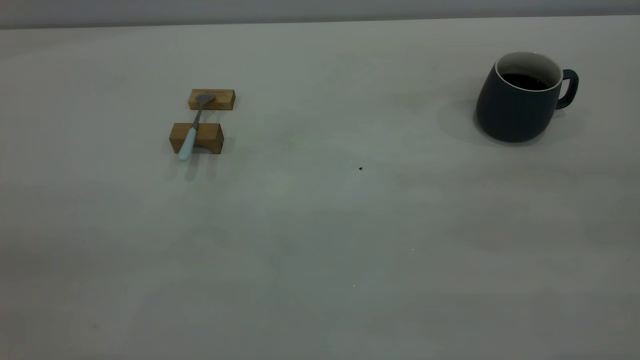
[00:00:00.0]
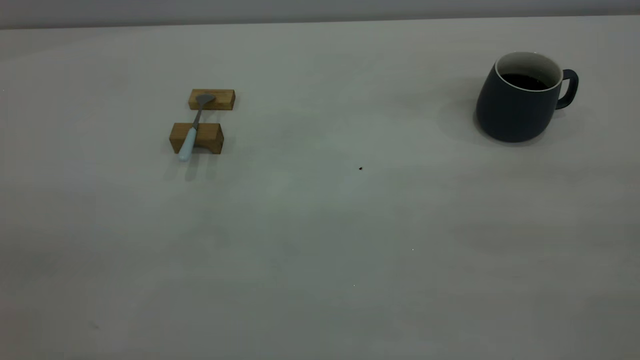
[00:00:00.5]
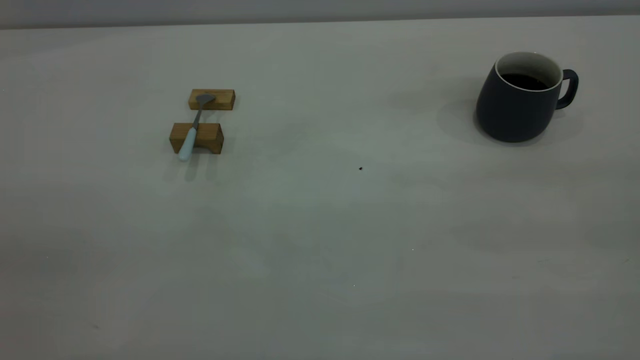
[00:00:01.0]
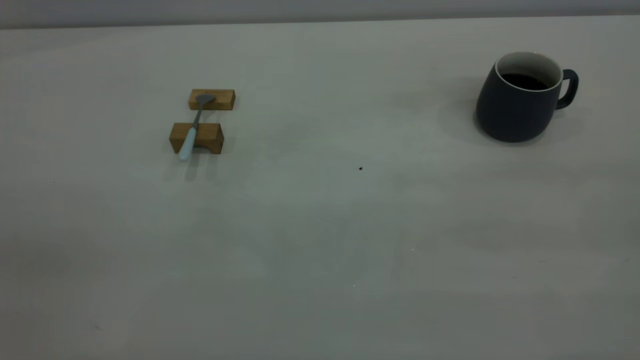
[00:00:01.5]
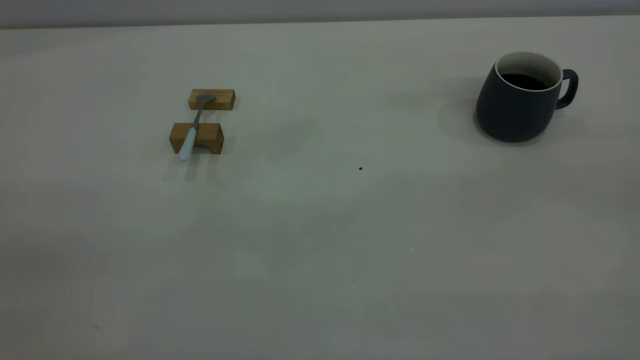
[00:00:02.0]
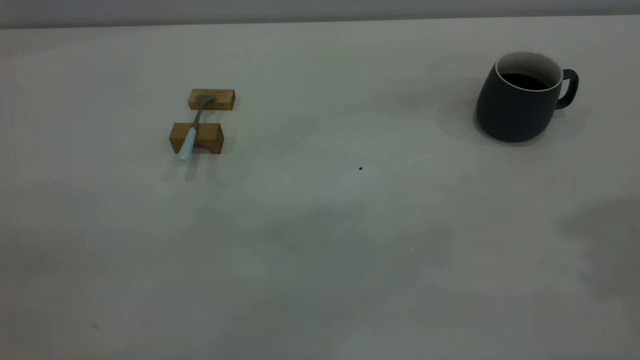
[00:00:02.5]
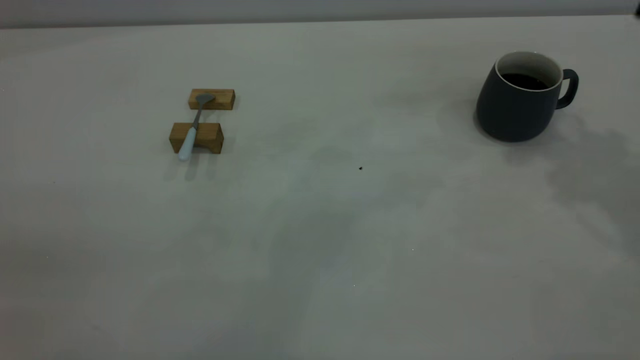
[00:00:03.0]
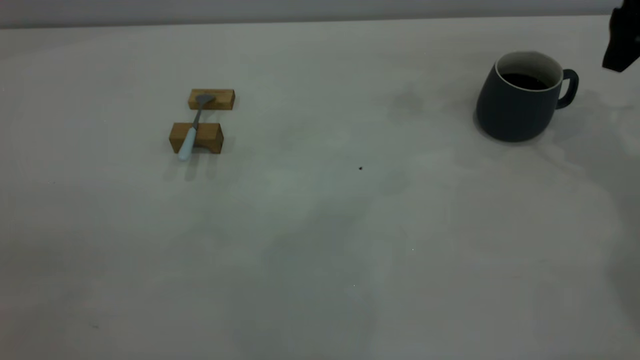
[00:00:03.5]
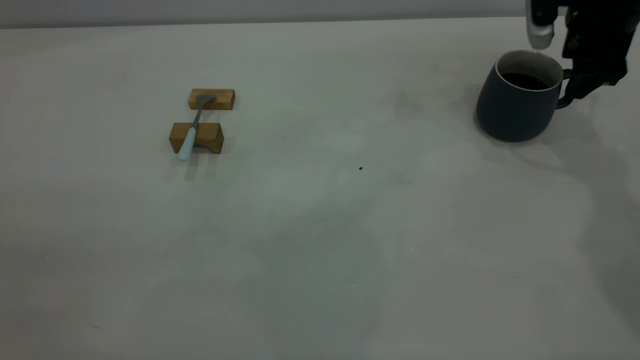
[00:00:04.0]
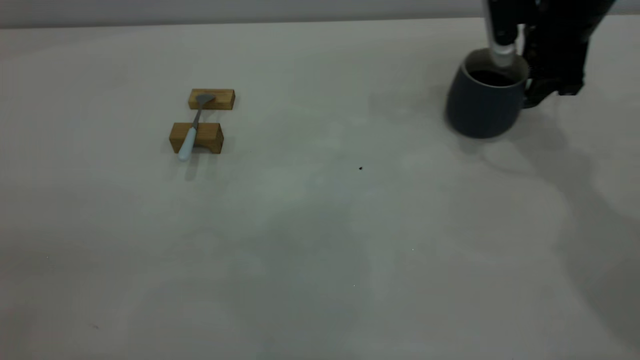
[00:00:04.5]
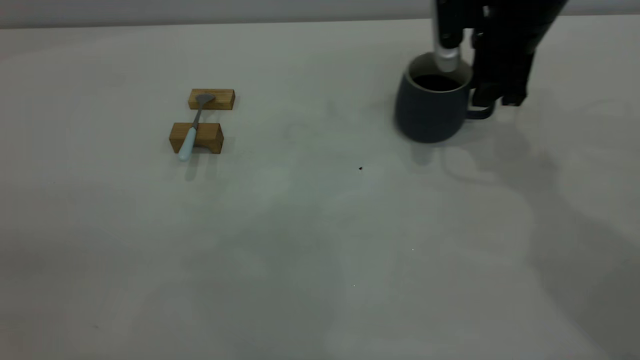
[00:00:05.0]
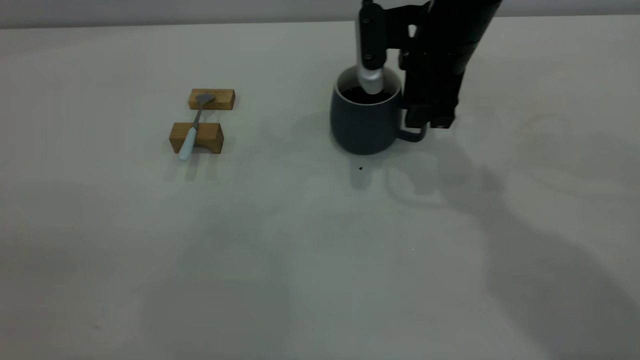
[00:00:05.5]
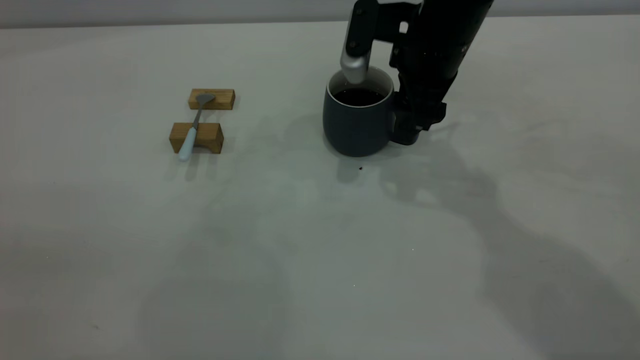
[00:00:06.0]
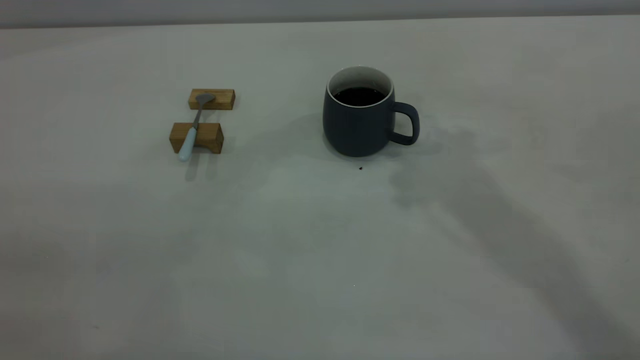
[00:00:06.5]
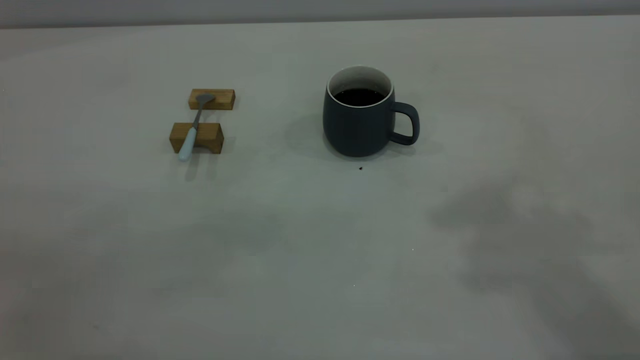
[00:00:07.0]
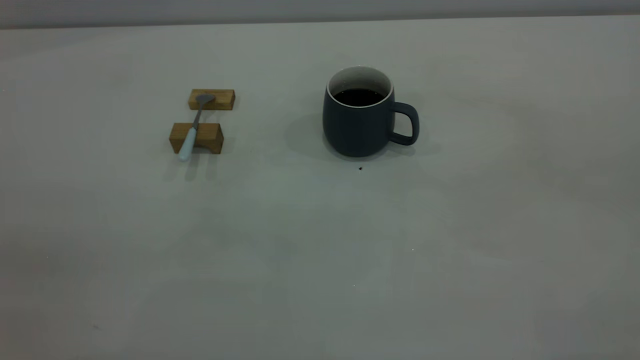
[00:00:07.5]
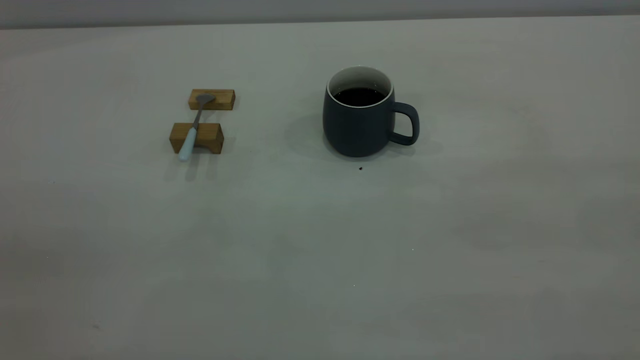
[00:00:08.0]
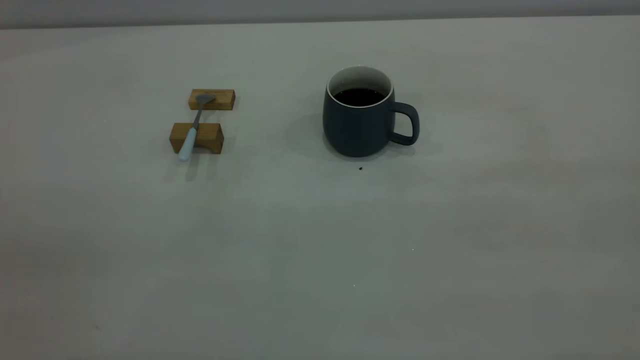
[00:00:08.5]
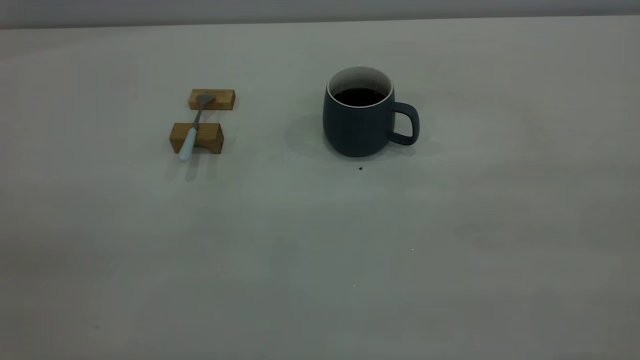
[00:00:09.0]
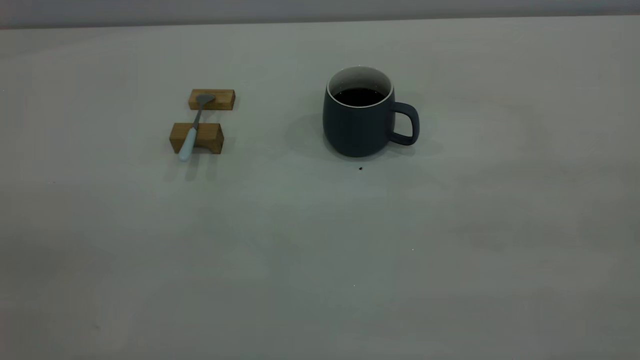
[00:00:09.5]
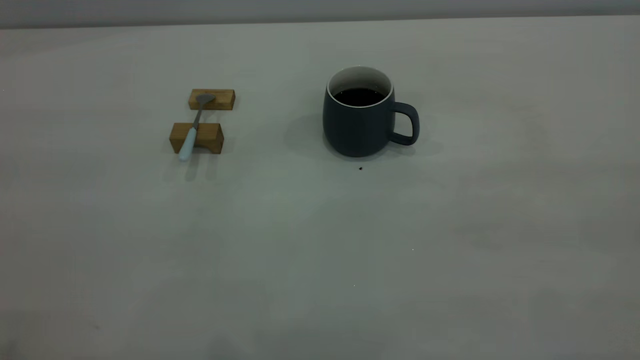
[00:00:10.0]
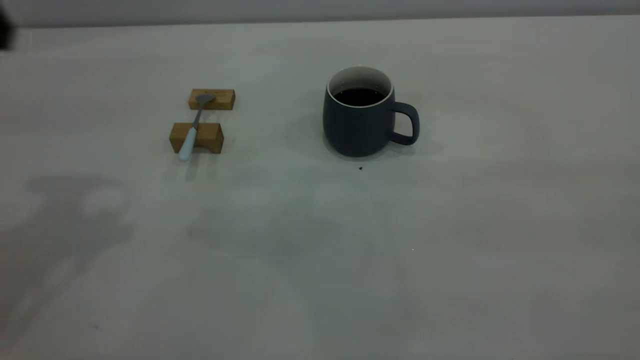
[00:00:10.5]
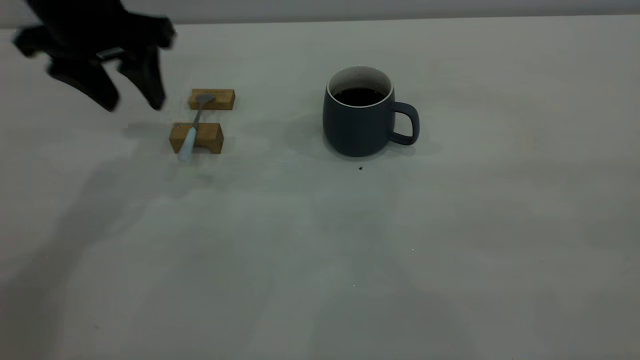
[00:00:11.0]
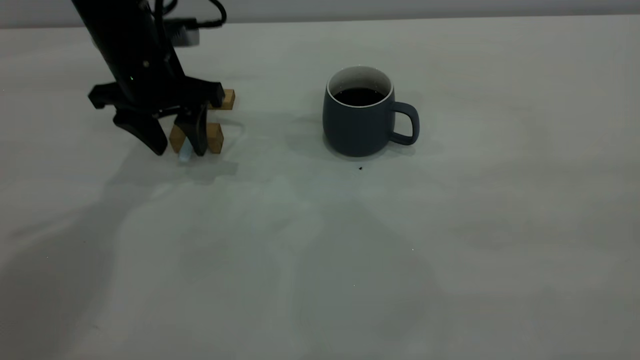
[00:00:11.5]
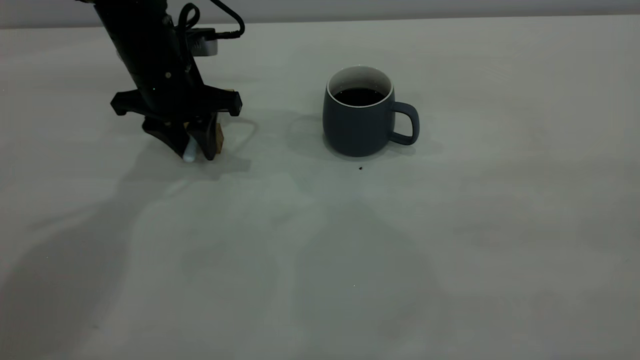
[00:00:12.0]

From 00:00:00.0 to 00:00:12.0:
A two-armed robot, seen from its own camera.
Step, from 00:00:00.0 to 00:00:06.0: Move the cup with coffee to the center of view.
From 00:00:02.0 to 00:00:04.0: The right gripper travels forward and downward by approximately 50 cm.
From 00:00:04.0 to 00:00:06.0: The right gripper goes about 20 cm to the left, and closes and opens again.
From 00:00:06.0 to 00:00:08.0: The right gripper shifts some 50 cm backward, upward and to the right.
From 00:00:10.0 to 00:00:12.0: The left gripper goes approximately 40 cm forward and downward, and closes up.

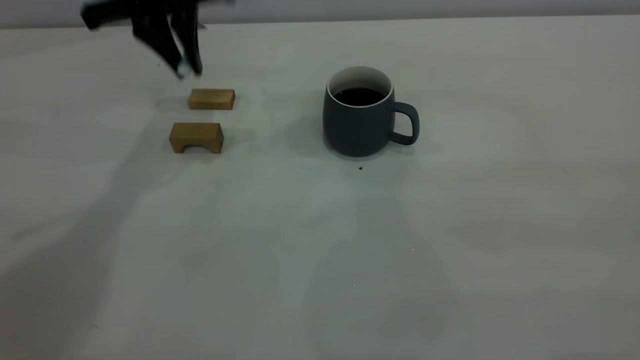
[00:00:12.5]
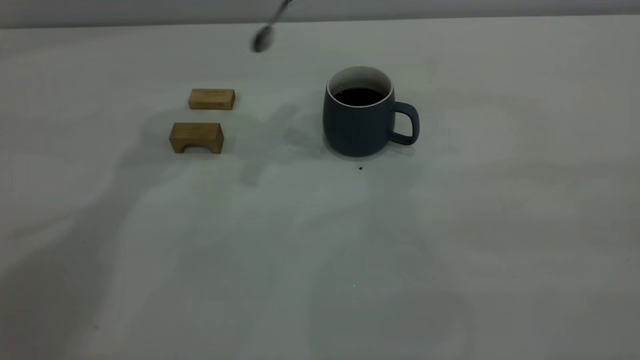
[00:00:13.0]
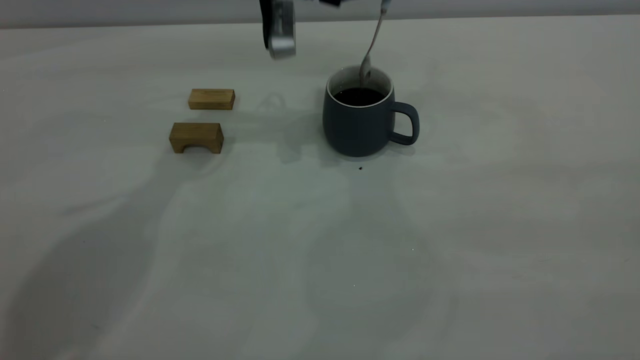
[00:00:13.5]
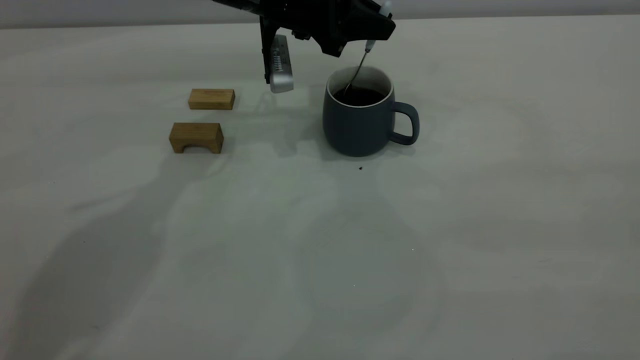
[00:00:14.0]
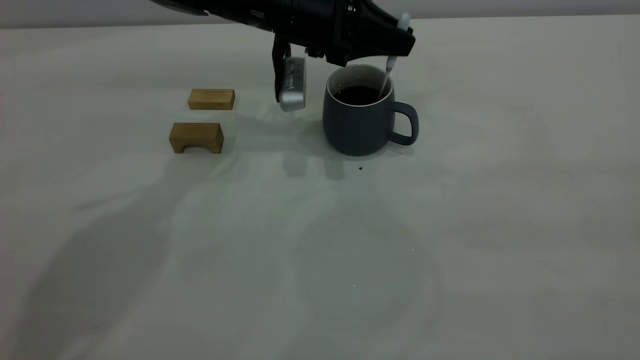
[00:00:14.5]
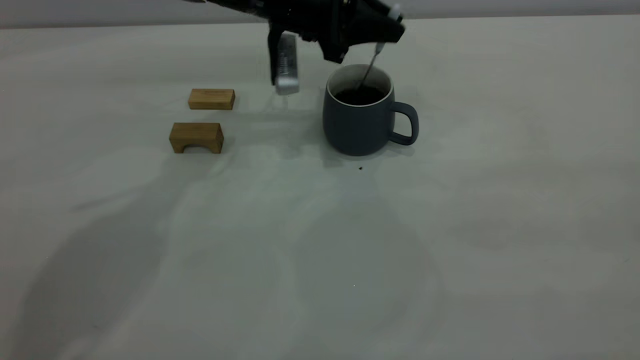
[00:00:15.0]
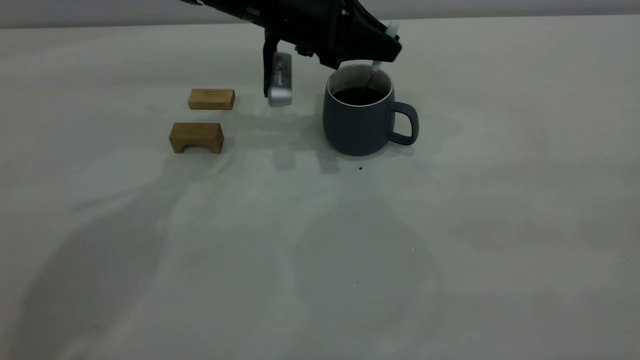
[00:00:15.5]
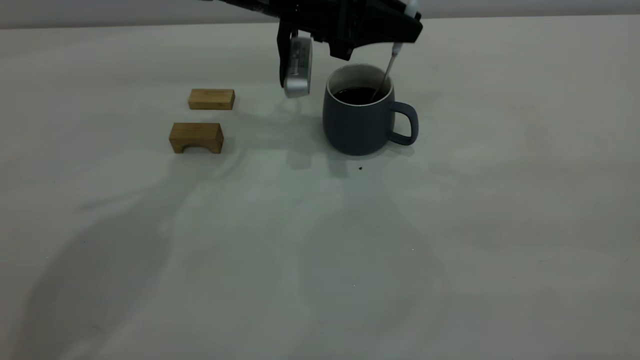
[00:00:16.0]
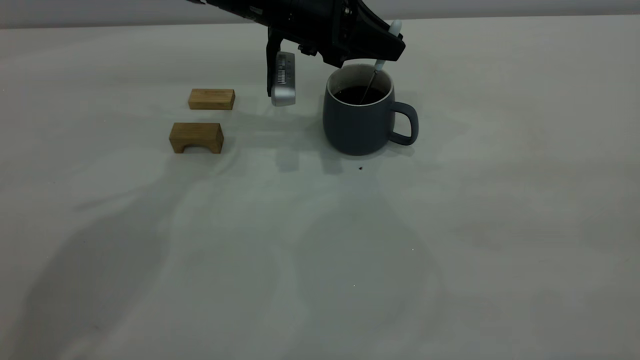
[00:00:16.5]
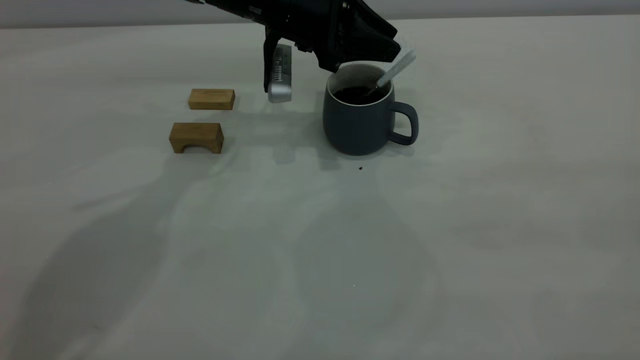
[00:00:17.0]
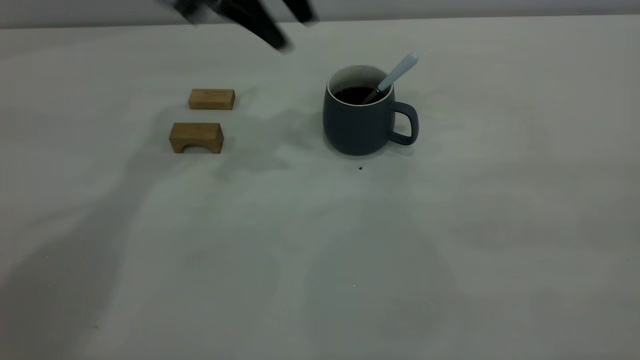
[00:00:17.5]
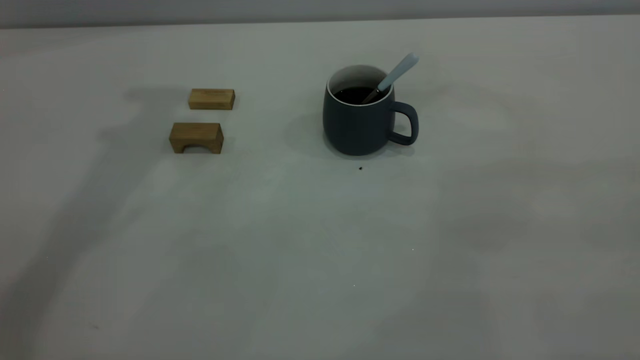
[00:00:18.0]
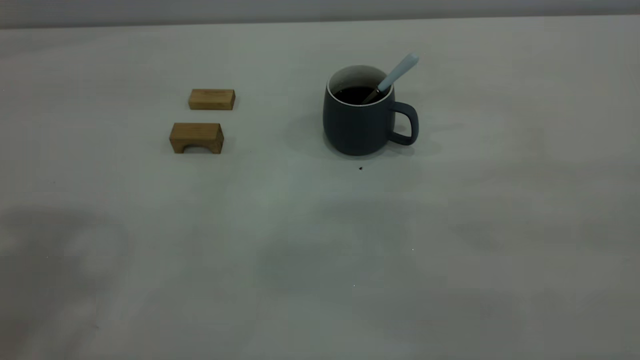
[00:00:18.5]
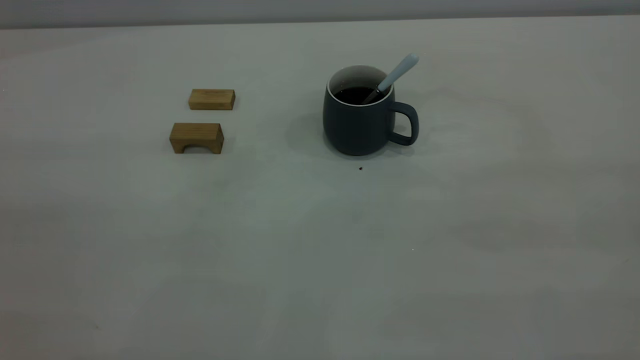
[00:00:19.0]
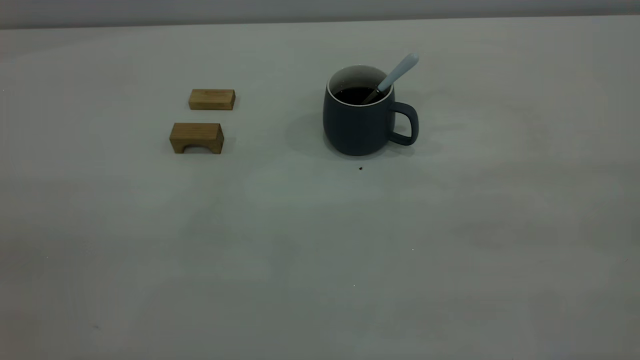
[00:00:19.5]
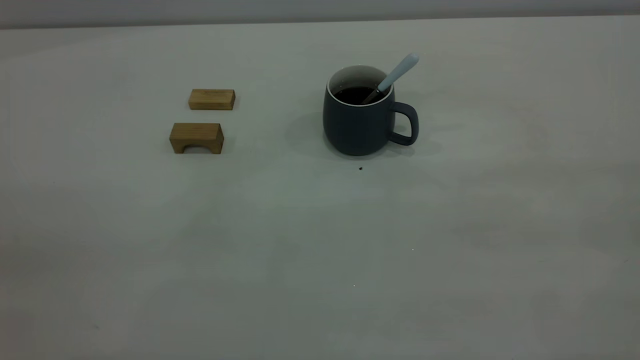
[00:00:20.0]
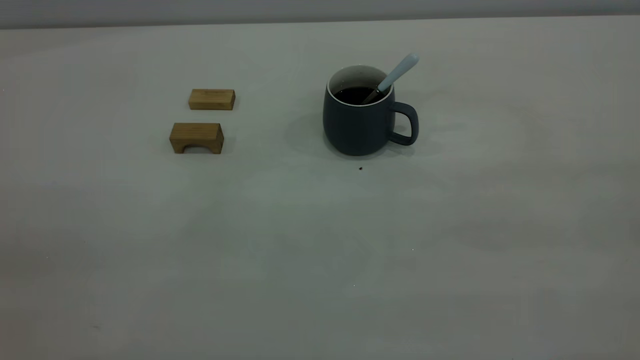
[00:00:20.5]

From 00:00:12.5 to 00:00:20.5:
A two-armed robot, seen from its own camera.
Step, from 00:00:12.5 to 00:00:17.0: Stir the coffee in the cup.
From 00:00:12.5 to 00:00:14.5: The left gripper heads to the right and downward, covering about 15 cm.
From 00:00:14.5 to 00:00:16.5: The grippers move only a little.
From 00:00:16.5 to 00:00:18.5: The left gripper shifts roughly 40 cm upward, backward and to the left, and opens up.
